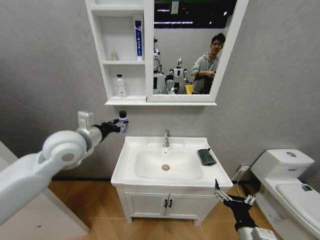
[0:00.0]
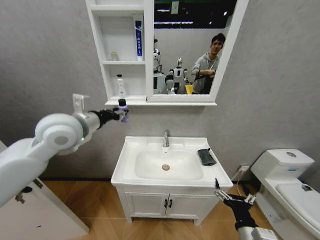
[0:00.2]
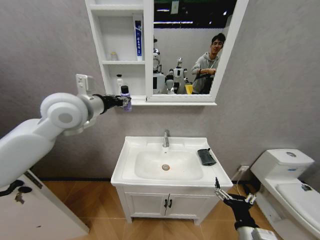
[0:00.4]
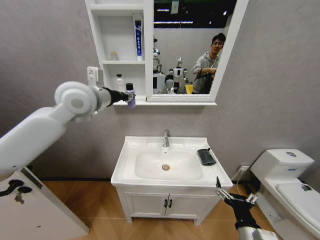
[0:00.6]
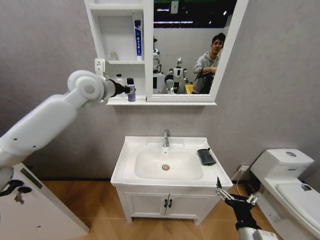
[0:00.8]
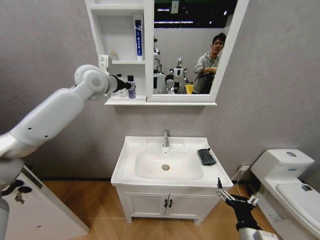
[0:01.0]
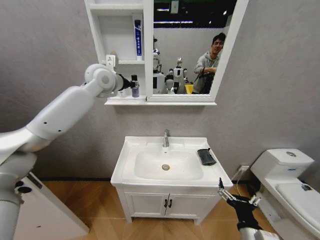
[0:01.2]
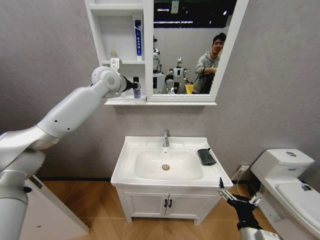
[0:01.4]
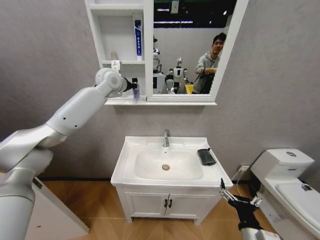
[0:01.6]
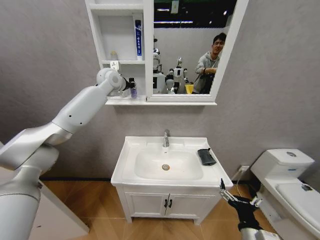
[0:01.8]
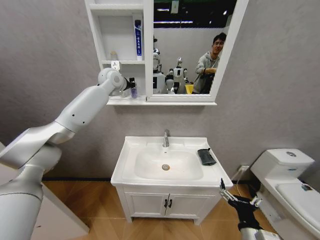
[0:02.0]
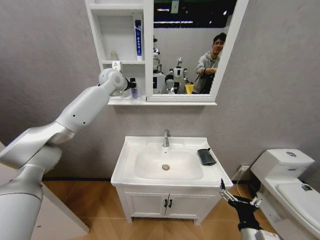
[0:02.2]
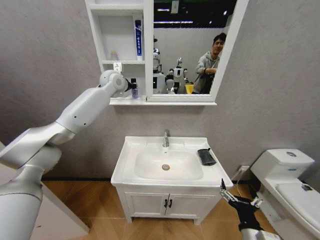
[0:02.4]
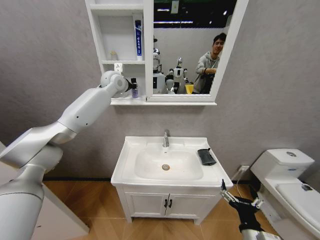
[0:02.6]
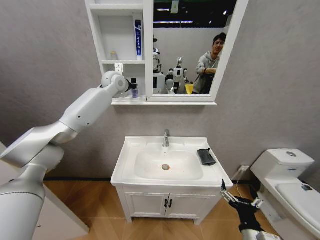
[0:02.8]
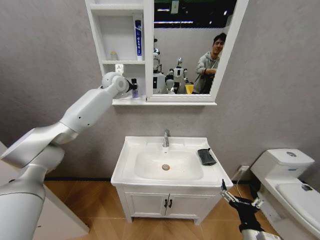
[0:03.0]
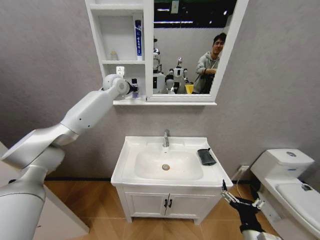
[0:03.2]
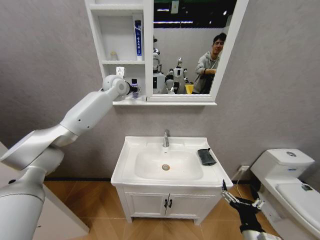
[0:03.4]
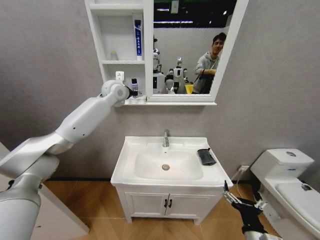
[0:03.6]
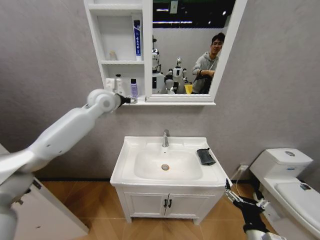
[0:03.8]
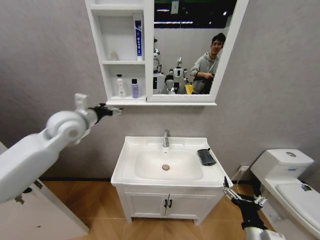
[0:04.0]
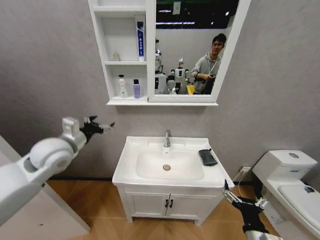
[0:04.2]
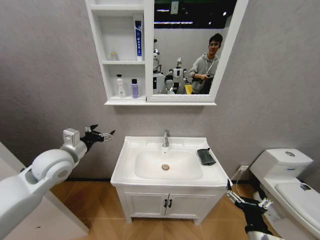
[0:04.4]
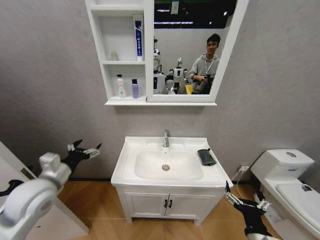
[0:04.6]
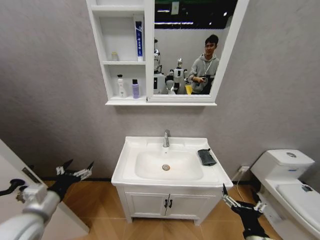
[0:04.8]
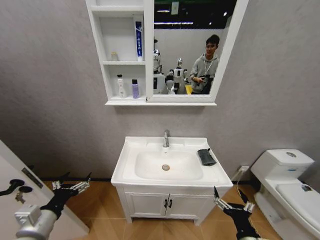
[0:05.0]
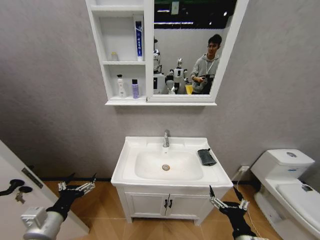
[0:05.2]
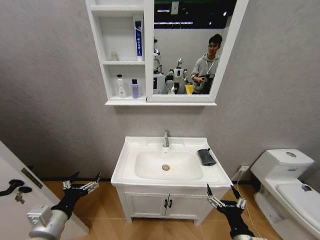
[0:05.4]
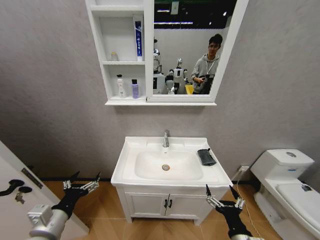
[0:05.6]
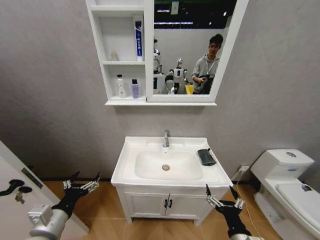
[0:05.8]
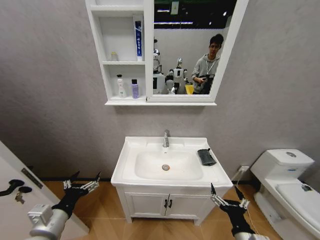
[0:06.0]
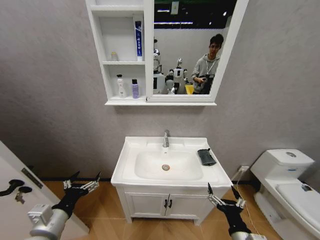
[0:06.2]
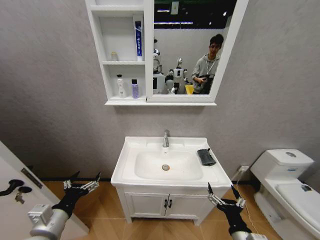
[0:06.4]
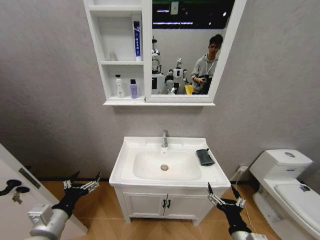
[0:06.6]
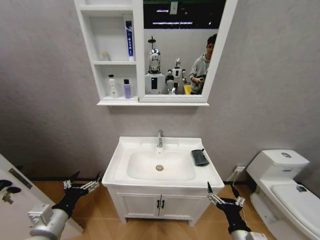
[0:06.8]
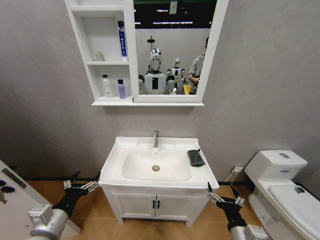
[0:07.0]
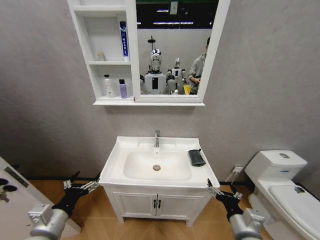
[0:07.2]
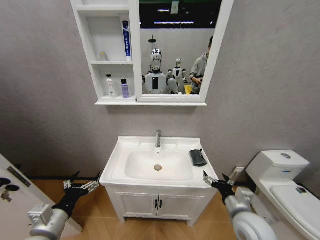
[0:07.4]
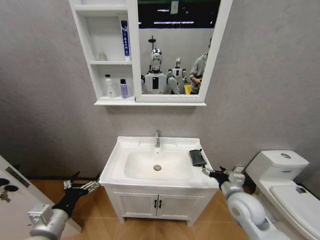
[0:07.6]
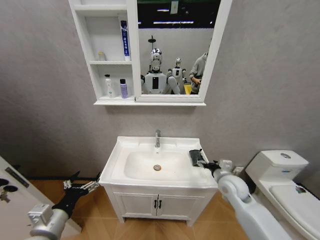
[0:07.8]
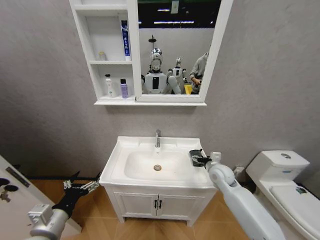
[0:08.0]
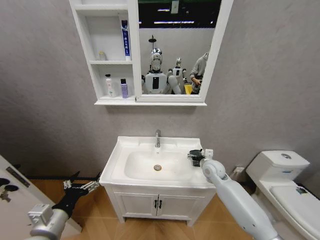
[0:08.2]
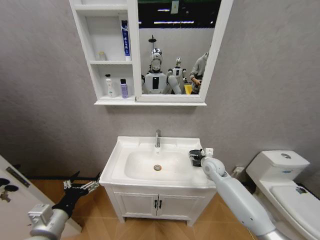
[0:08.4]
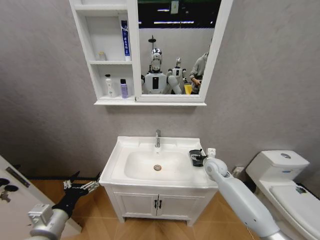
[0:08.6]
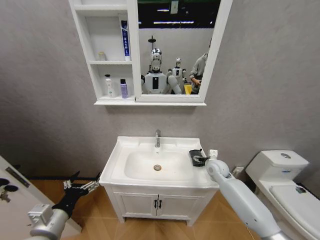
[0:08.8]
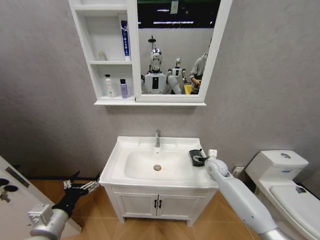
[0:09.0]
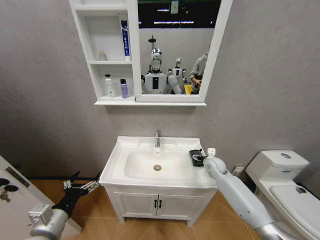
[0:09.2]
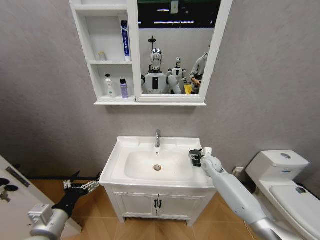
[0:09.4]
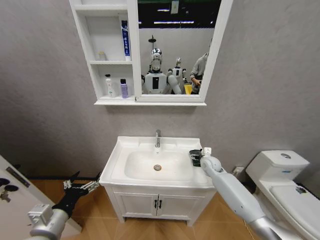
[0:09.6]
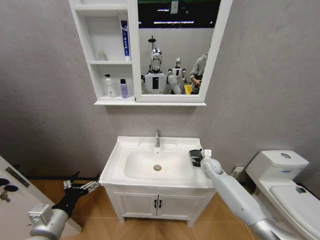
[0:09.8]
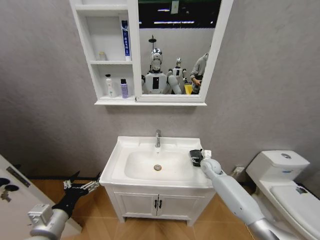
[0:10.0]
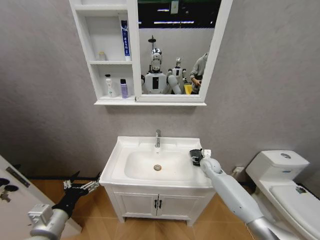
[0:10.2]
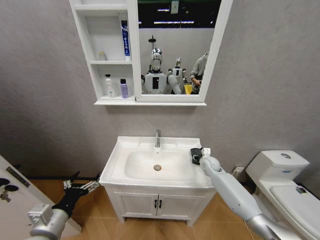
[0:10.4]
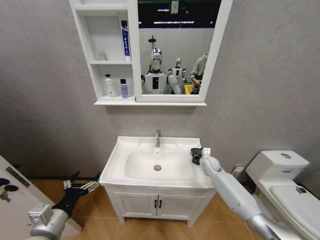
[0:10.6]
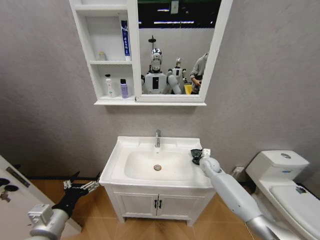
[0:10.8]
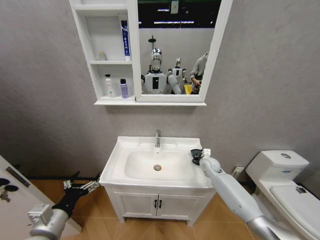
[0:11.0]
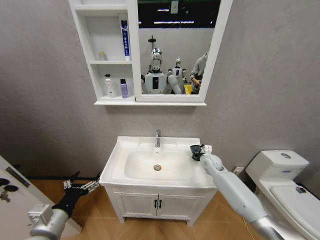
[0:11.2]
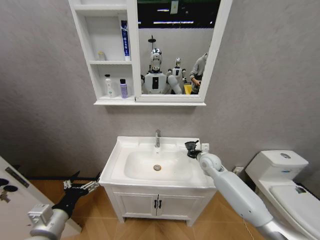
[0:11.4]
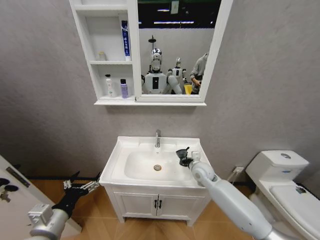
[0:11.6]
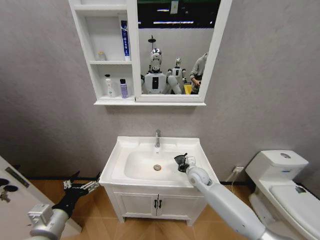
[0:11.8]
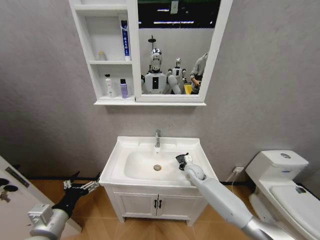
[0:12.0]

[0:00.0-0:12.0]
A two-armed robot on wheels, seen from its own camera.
Task of the whole recording: Move facial cleanser and shampoo from washbasin to cabinet, then wipe washbasin with towel.
0:00.0 to 0:01.6: The left gripper travels forward and upward by approximately 25 cm.
0:01.6 to 0:03.0: The grippers stay close to where they were, moving slightly.
0:03.0 to 0:04.4: The left gripper is displaced backward, downward and to the left by about 35 cm, and opens.
0:04.4 to 0:06.0: The left gripper heads backward and downward, covering about 20 cm.
0:06.0 to 0:07.6: The right gripper heads forward, covering some 15 cm.
0:07.6 to 0:09.0: The right gripper travels forward by approximately 20 cm.
0:09.0 to 0:10.4: The right gripper closes up.
0:10.4 to 0:12.0: The right gripper heads to the left, covering roughly 10 cm, and closes its fingers.

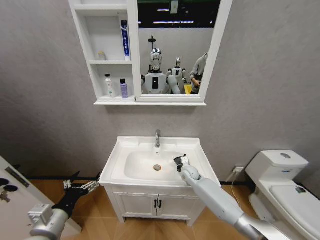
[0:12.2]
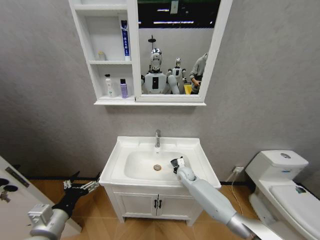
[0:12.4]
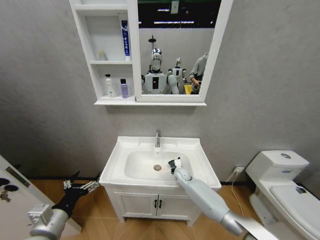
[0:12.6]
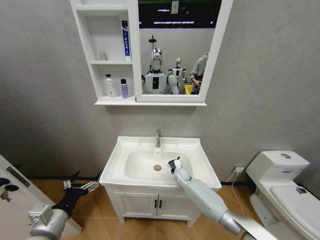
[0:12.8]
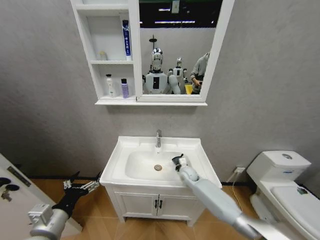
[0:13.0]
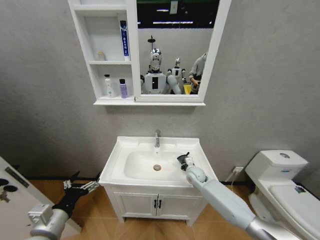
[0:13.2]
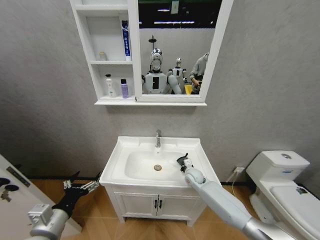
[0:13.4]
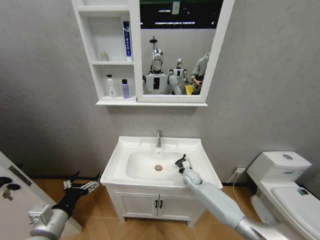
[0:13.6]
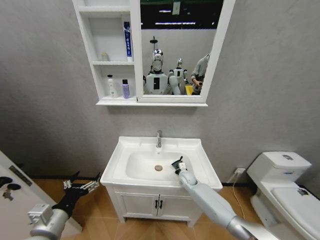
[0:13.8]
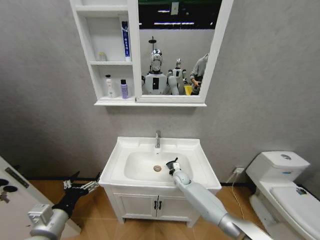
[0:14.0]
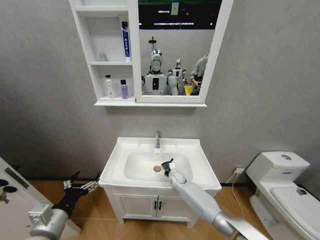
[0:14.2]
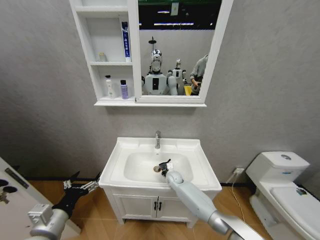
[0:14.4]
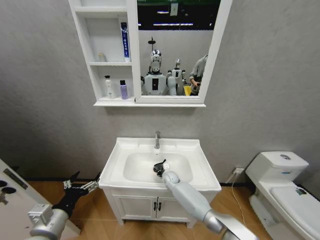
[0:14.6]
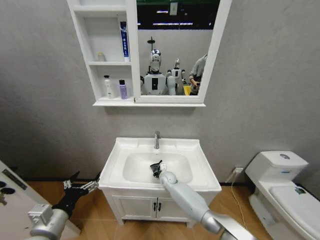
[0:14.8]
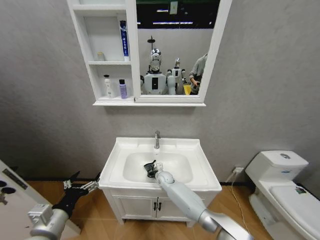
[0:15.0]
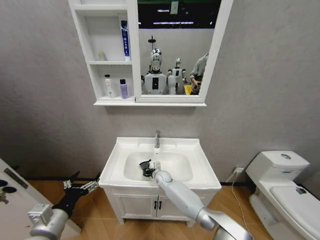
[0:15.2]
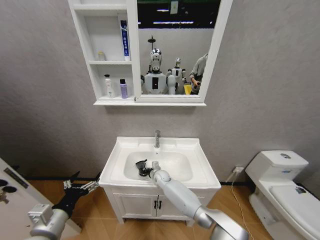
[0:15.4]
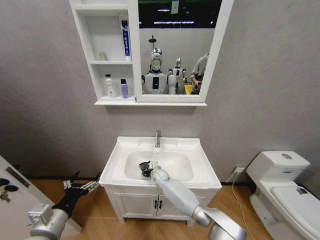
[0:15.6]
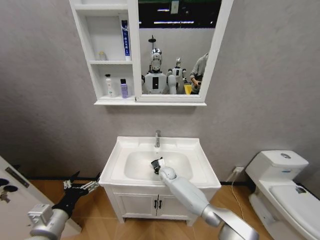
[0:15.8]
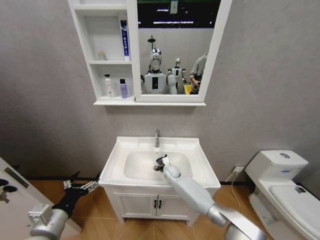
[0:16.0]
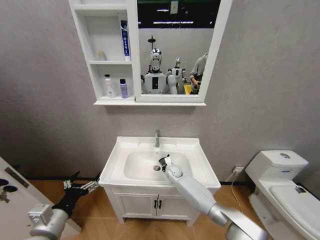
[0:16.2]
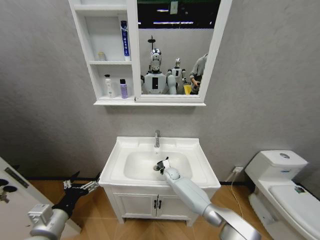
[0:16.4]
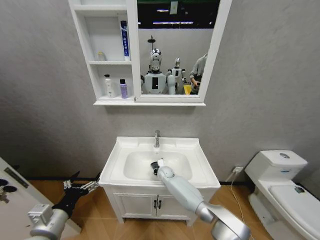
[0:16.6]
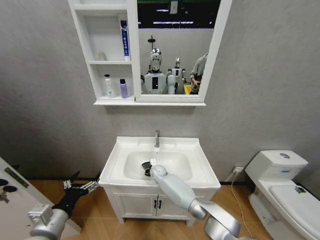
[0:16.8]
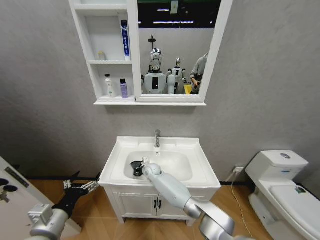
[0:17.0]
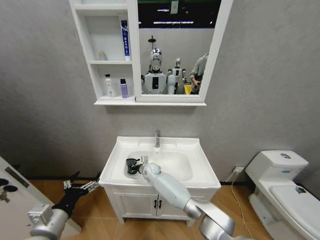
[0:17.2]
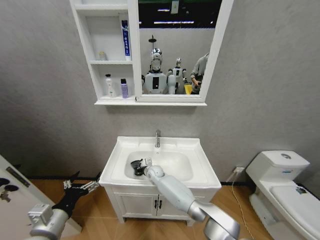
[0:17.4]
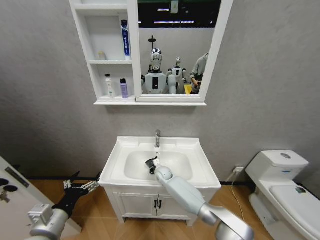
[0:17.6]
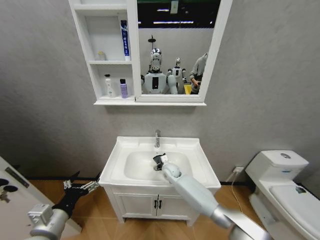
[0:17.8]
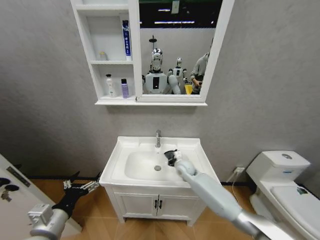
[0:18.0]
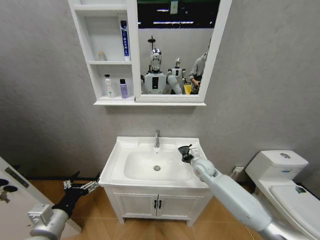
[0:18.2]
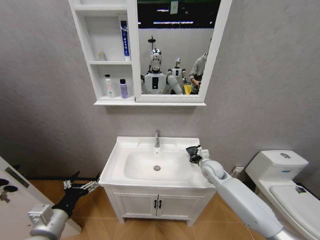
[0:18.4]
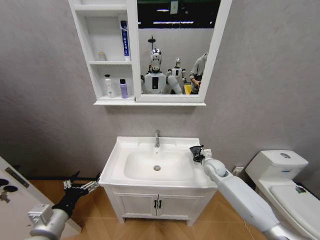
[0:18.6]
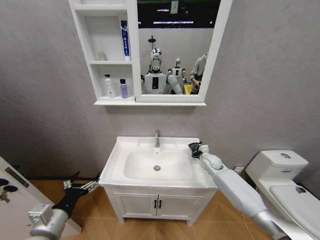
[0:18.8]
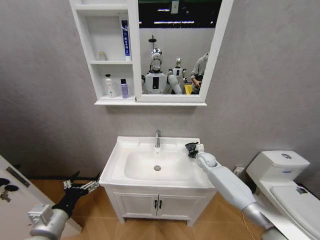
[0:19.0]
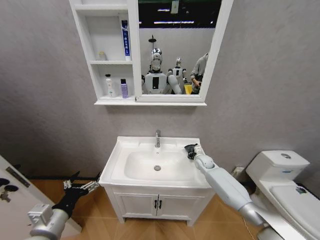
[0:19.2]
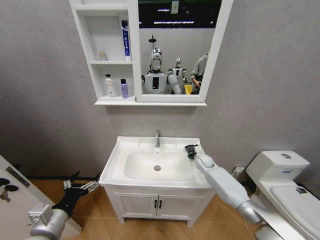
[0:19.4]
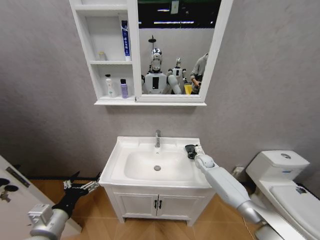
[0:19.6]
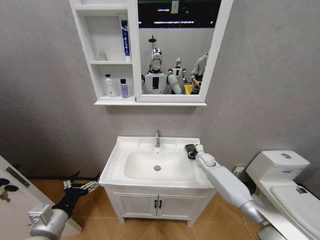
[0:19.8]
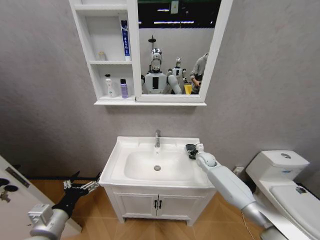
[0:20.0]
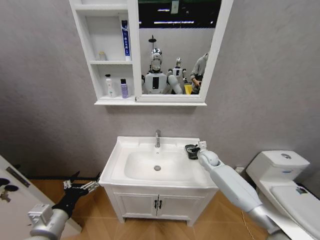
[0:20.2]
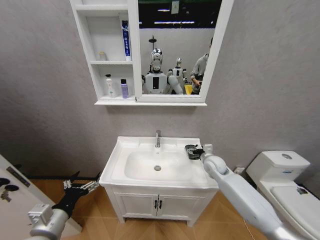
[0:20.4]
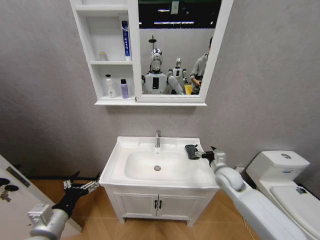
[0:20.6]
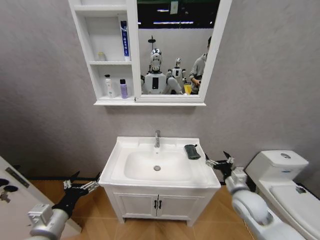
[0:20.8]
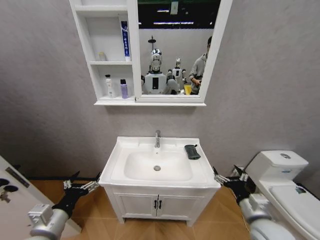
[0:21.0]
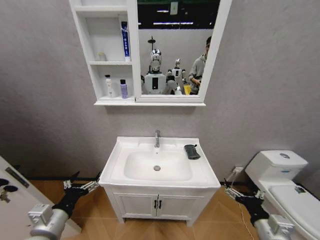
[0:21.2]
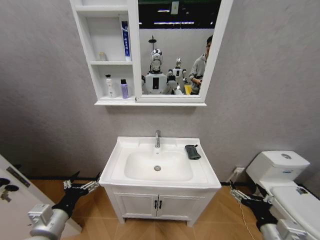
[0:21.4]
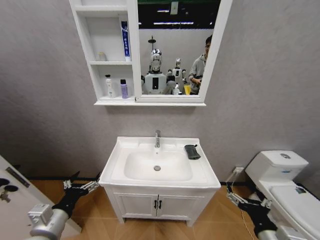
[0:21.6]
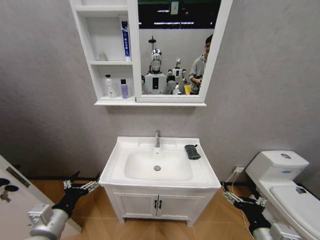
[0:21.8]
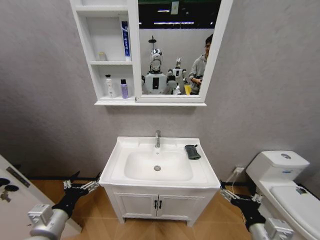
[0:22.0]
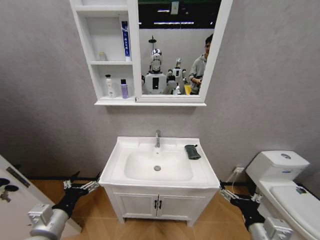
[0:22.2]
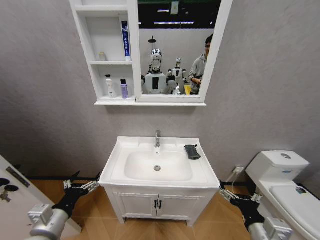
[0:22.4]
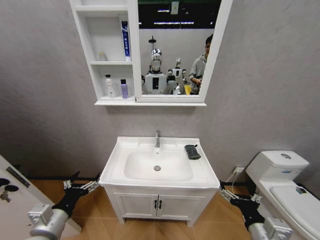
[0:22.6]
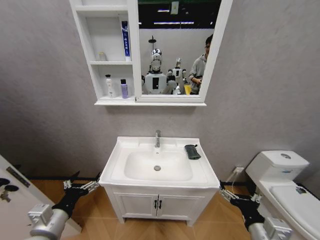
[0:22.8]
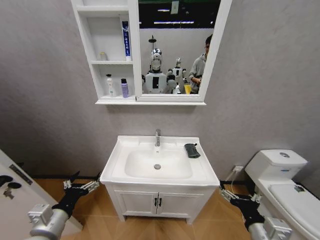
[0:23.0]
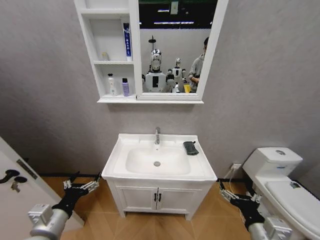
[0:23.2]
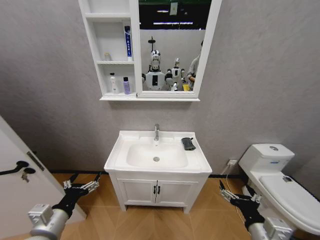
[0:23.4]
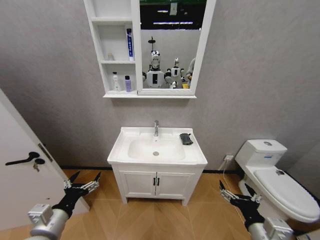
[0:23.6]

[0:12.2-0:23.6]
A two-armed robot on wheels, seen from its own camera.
Task of the whole recording: Move facial cleanser and shampoo from washbasin to cabinet, then wipe washbasin with towel.
0:12.2 to 0:13.6: The grippers make only small movements.
0:13.6 to 0:15.0: The right gripper heads to the left, covering roughly 15 cm.
0:16.4 to 0:17.8: The right gripper moves upward, roughly 10 cm, and reaches about 10 cm to the left, then returns.
0:17.8 to 0:19.4: The right gripper heads to the right, covering some 20 cm.
0:19.4 to 0:20.8: The right gripper heads backward, covering roughly 25 cm, and opens.
0:20.8 to 0:22.2: The right gripper shifts about 15 cm backward.
